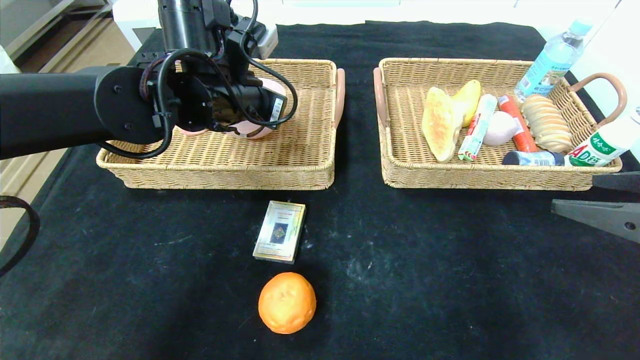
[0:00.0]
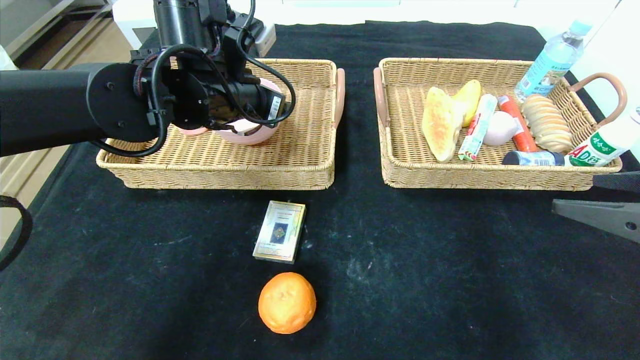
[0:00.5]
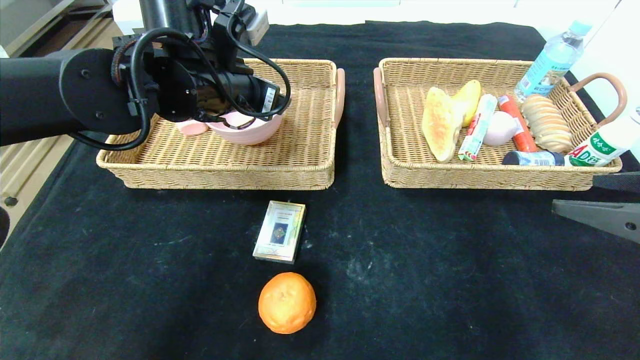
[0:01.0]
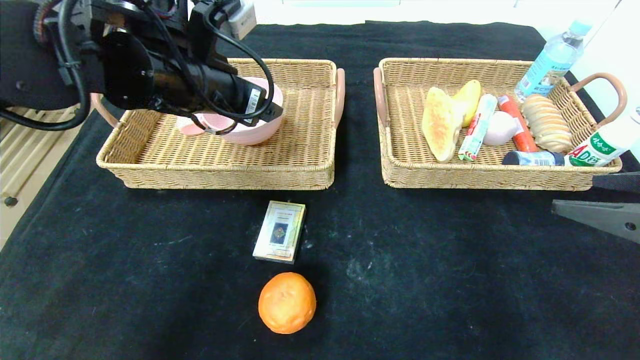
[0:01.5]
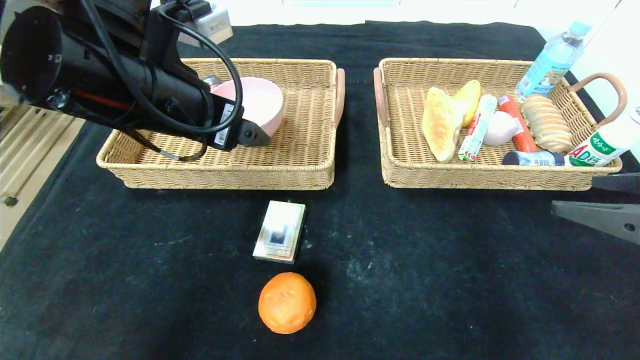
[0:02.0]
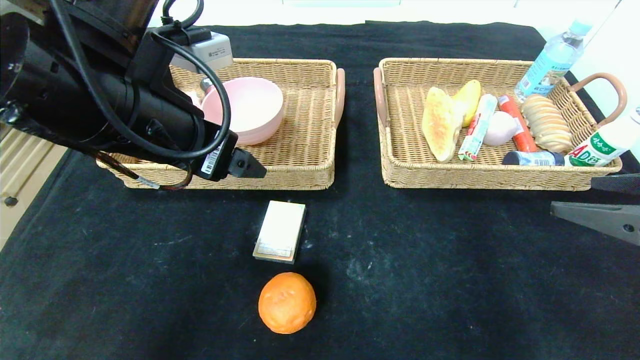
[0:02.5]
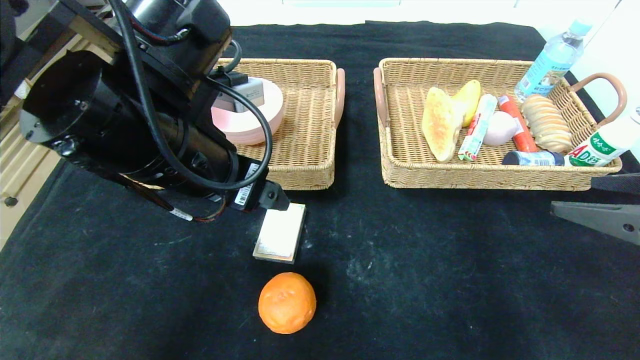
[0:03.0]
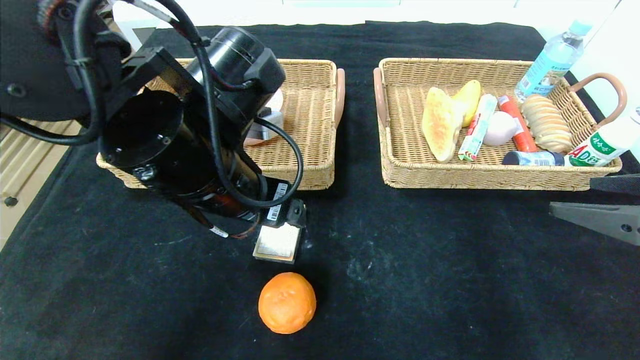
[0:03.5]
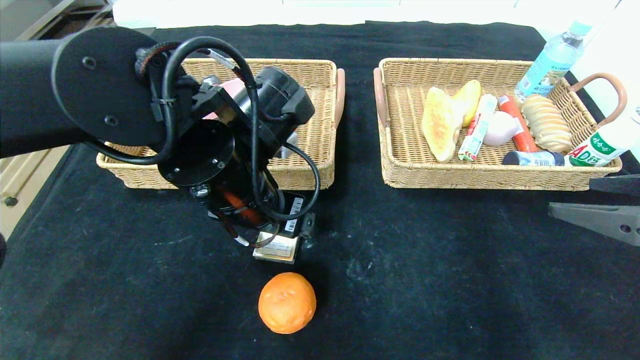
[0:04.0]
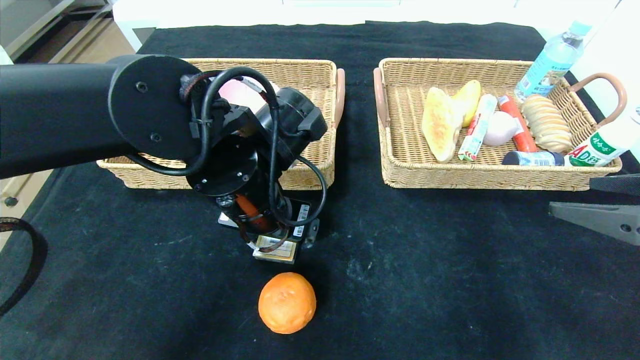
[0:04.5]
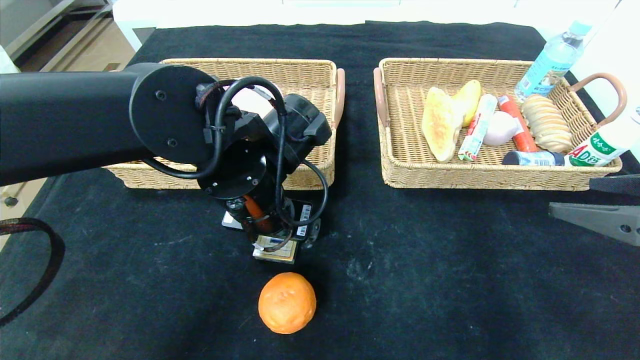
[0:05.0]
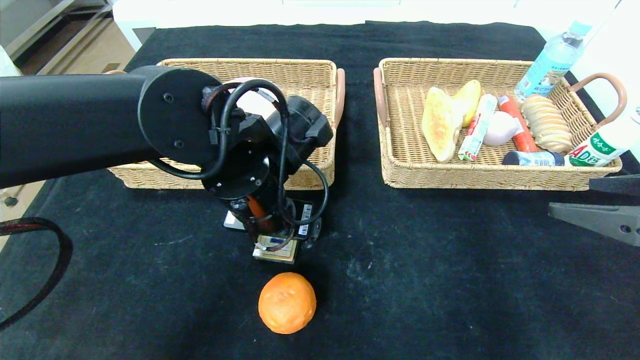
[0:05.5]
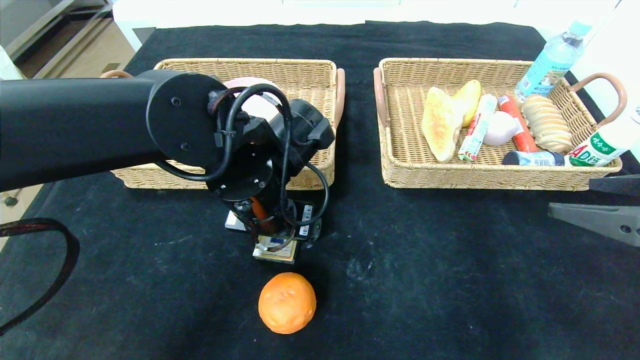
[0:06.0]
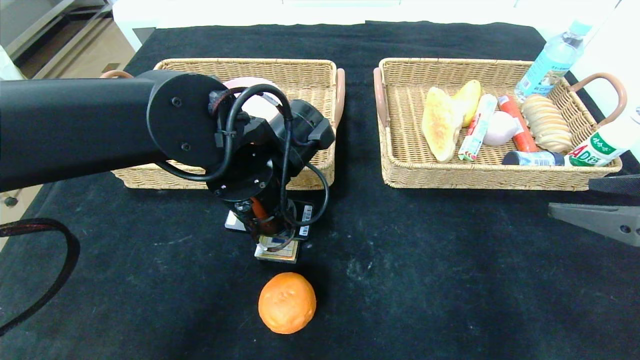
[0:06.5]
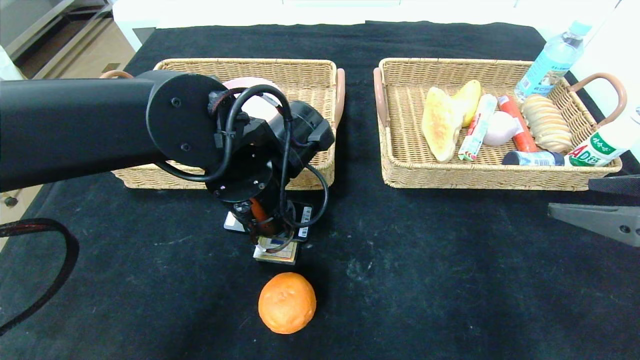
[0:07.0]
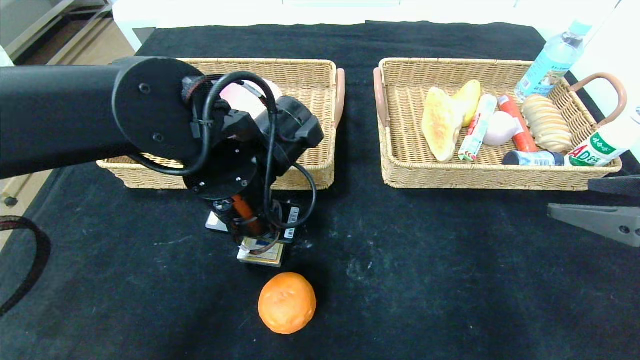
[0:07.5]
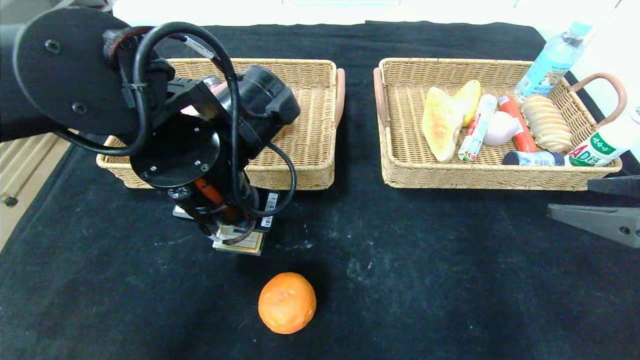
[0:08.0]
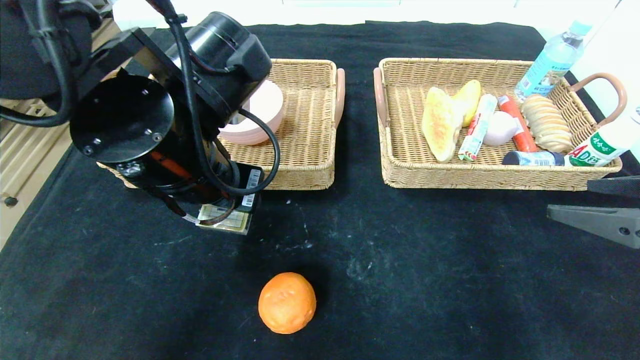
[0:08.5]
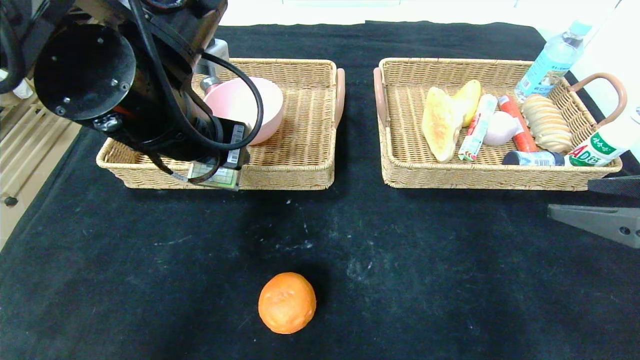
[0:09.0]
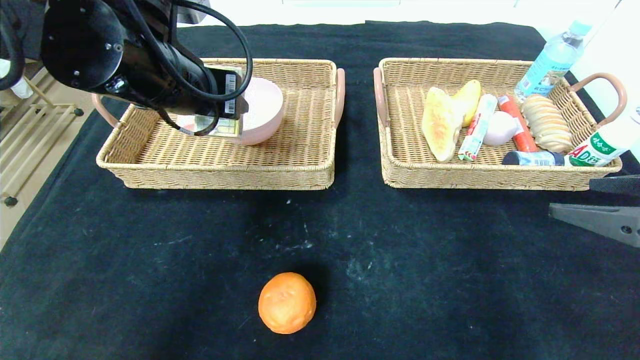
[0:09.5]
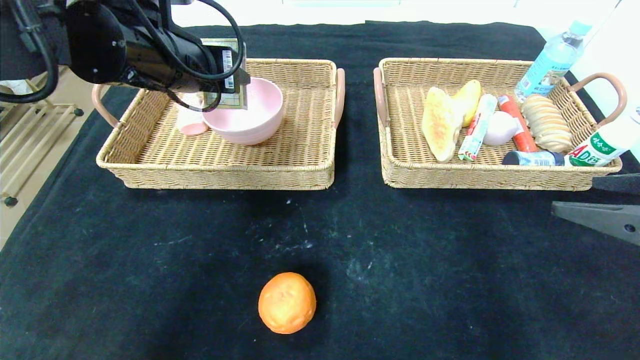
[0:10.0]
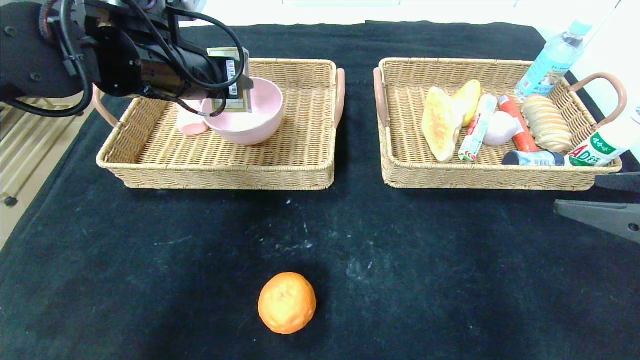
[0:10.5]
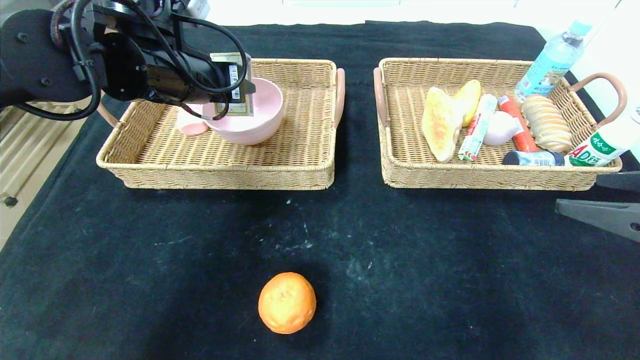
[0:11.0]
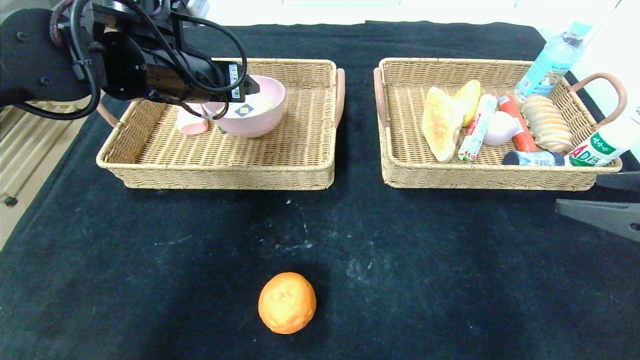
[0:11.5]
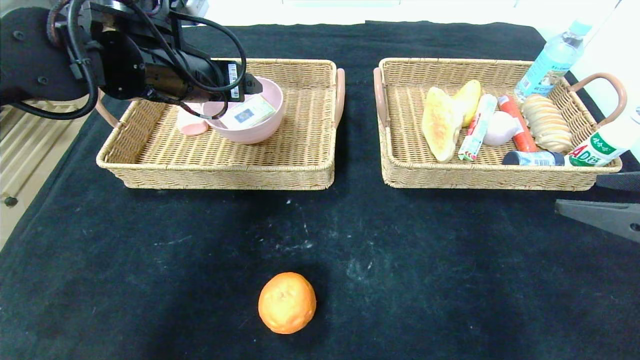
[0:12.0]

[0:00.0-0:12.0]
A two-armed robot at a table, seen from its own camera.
Step, 0:01.0 to 0:11.5: Grasp the playing cards and put it in the left basket.
0:00.0 to 0:02.0: The left gripper travels backward by approximately 10 cm, and opens.
0:02.0 to 0:04.0: The left gripper is displaced downward and to the right by about 10 cm.
0:04.0 to 0:06.0: The grippers make only small movements.
0:06.0 to 0:08.0: The left gripper shifts by about 5 cm, and closes.
0:08.0 to 0:10.0: The left gripper goes about 15 cm upward, forward and to the left.
0:10.0 to 0:12.0: The left gripper opens up.

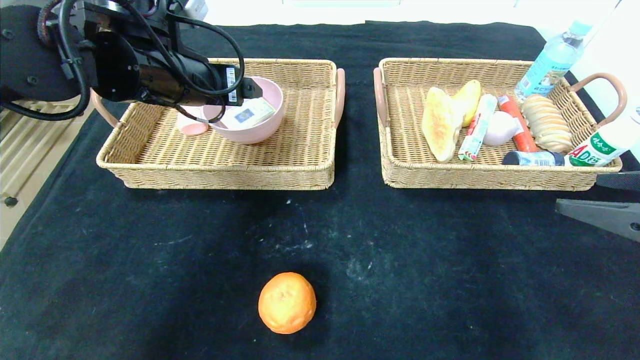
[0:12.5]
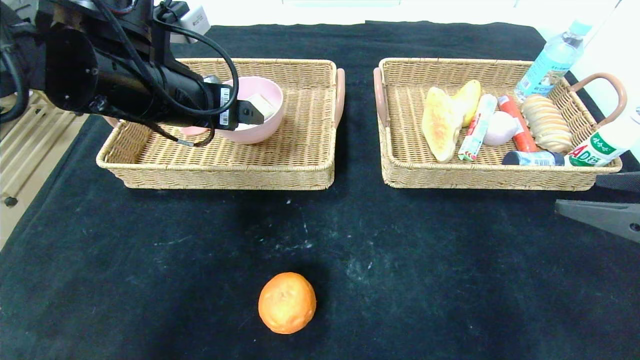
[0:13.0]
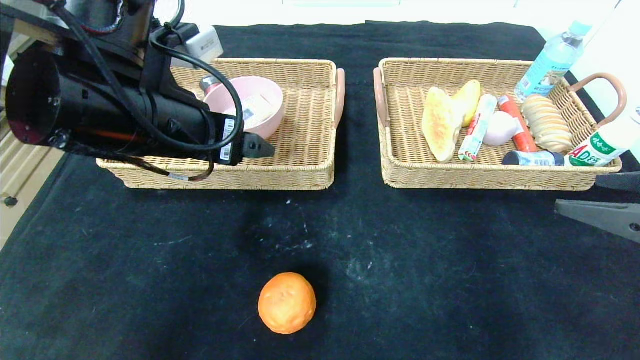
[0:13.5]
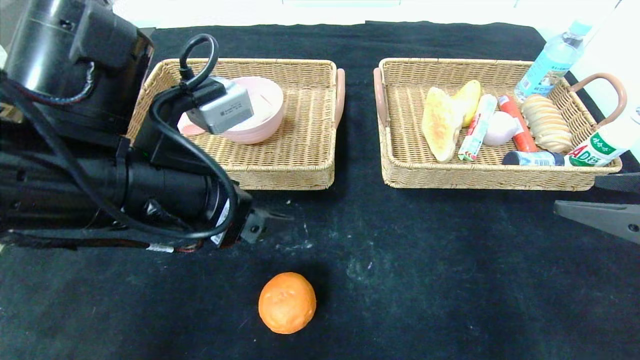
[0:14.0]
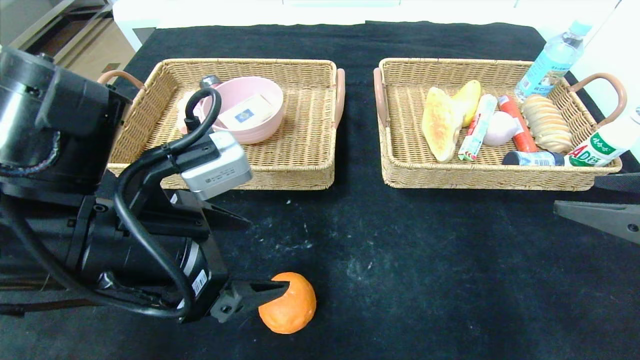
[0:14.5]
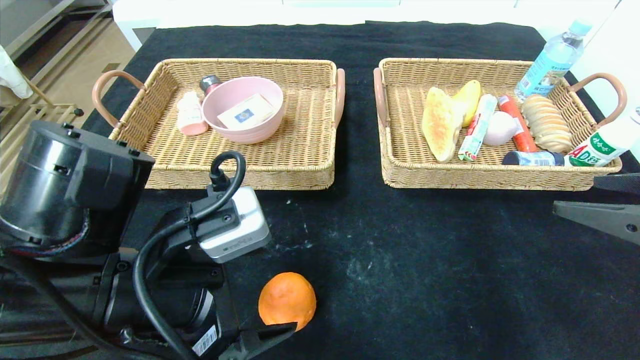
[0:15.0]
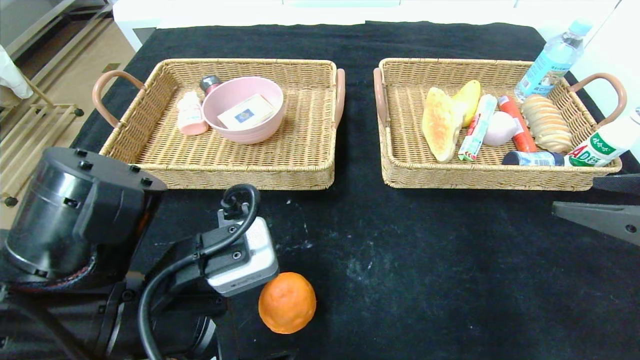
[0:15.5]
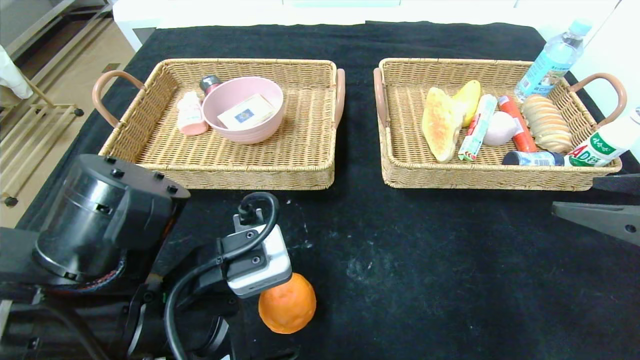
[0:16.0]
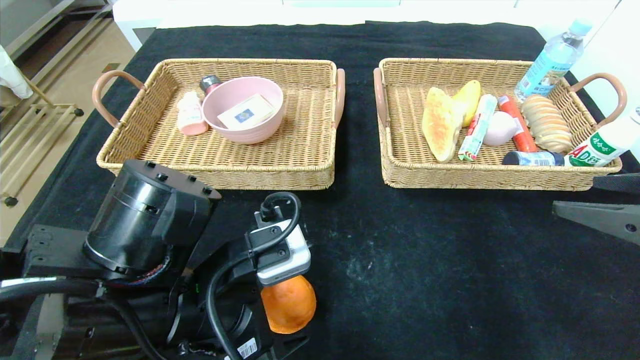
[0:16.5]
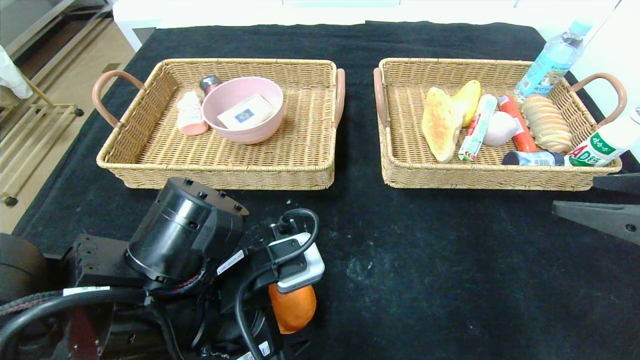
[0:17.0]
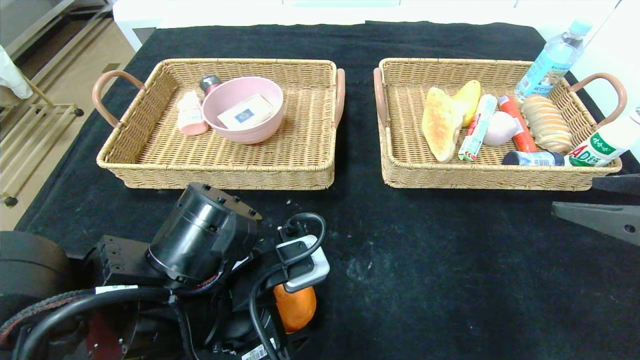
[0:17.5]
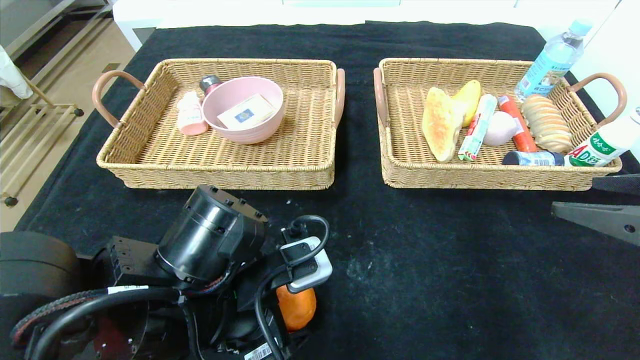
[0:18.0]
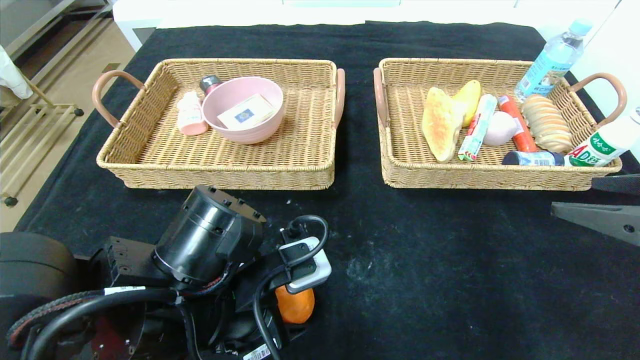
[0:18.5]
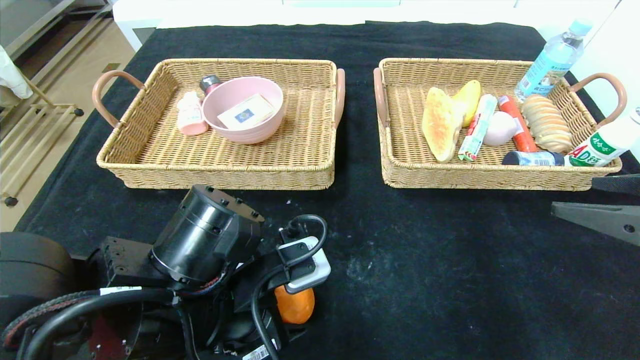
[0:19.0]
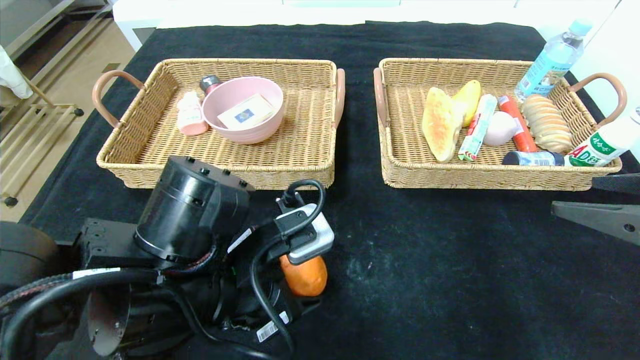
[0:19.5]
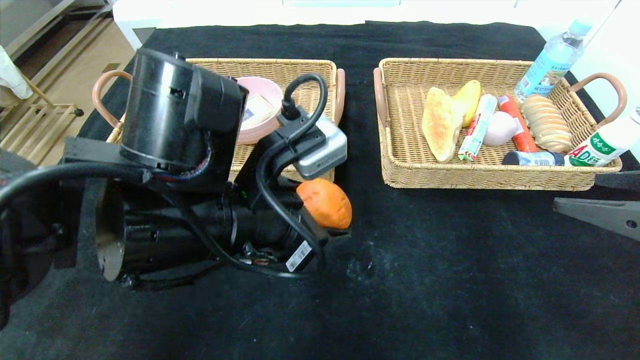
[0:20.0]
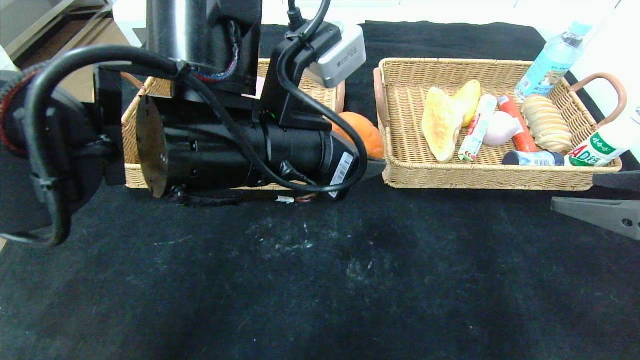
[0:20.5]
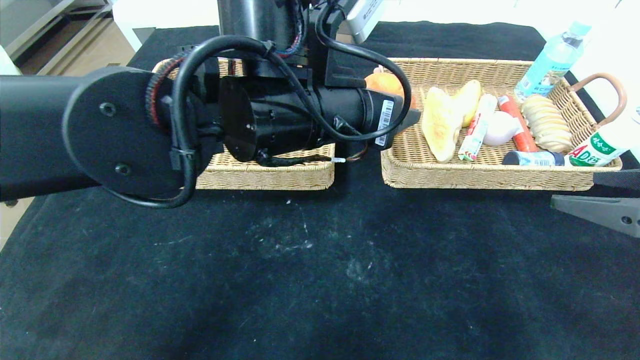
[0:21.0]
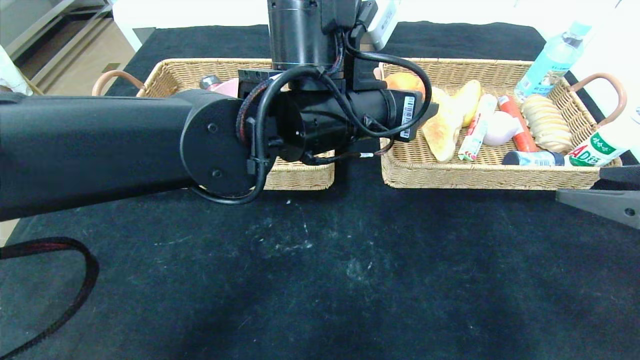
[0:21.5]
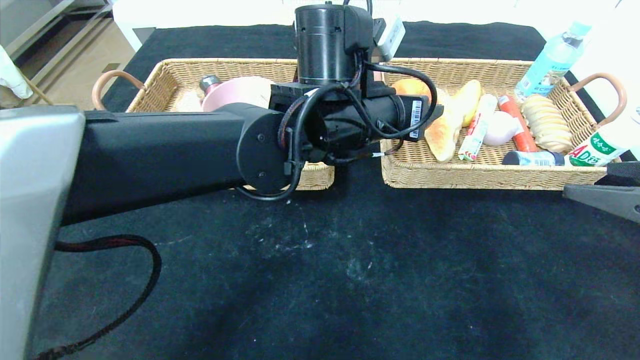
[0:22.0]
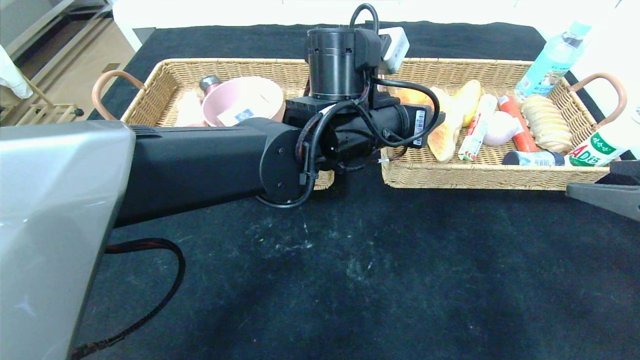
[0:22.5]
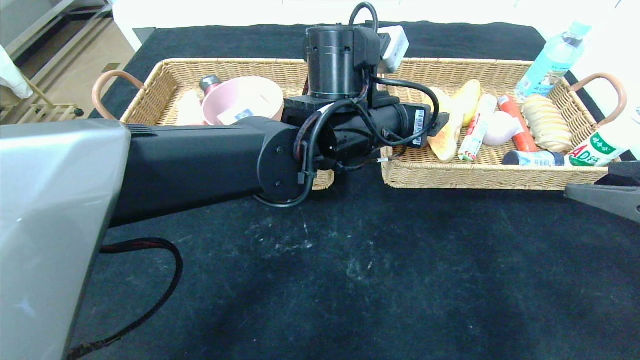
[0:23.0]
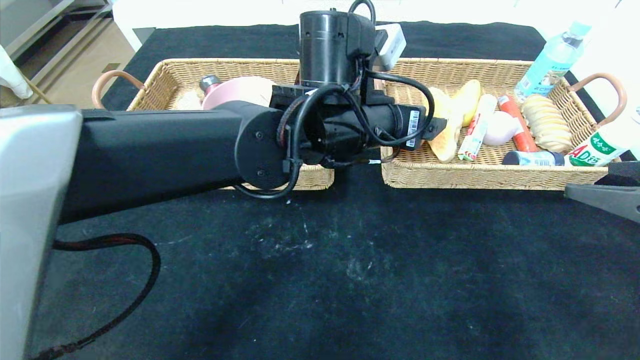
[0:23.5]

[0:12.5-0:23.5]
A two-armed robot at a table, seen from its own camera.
0:12.5 to 0:14.5: The left gripper shifts some 20 cm backward and downward.
0:14.5 to 0:16.0: The left gripper moves downward, about 5 cm.
0:16.0 to 0:18.0: There are only small adjustments of the grippers.
0:18.0 to 0:20.0: The left gripper goes some 10 cm upward.
0:20.0 to 0:21.5: The left gripper travels forward and to the right by some 15 cm.
